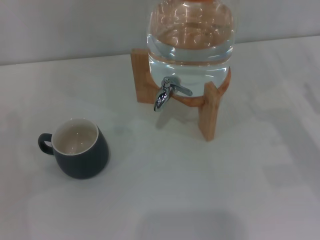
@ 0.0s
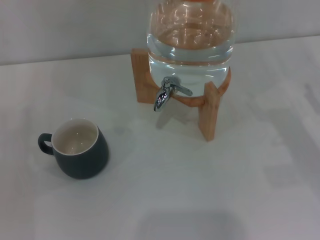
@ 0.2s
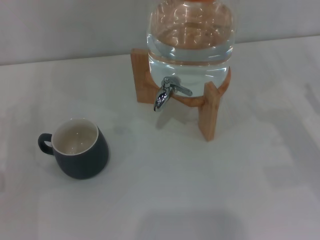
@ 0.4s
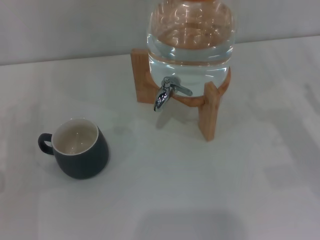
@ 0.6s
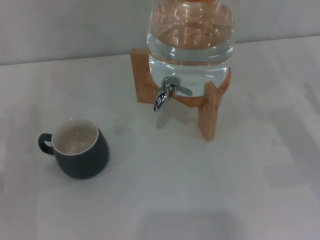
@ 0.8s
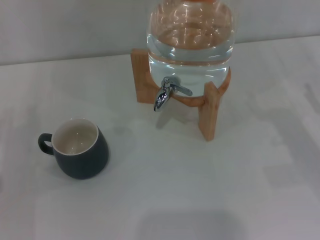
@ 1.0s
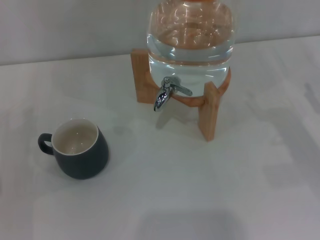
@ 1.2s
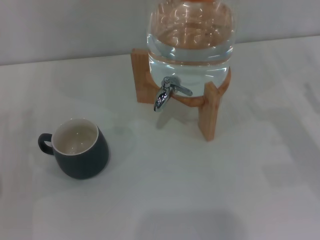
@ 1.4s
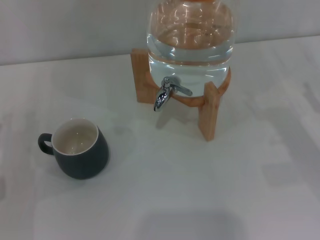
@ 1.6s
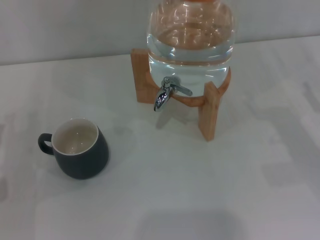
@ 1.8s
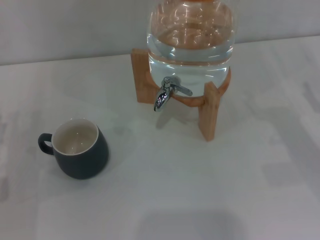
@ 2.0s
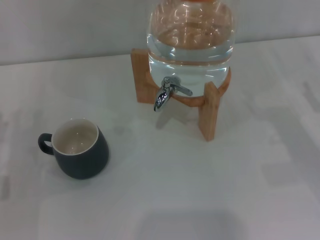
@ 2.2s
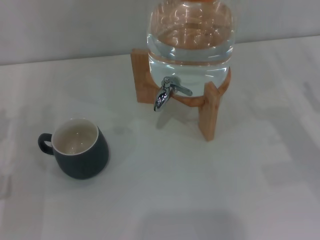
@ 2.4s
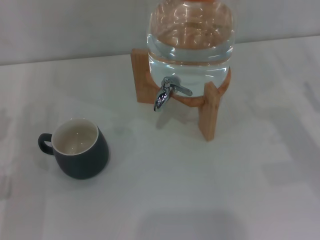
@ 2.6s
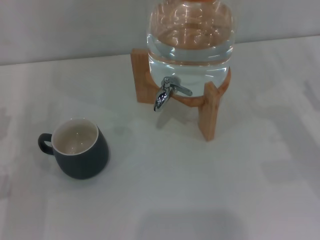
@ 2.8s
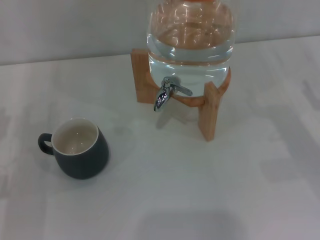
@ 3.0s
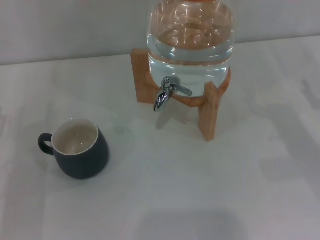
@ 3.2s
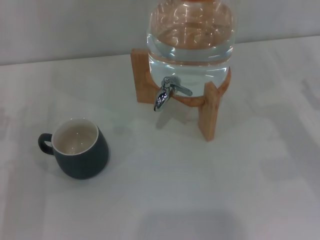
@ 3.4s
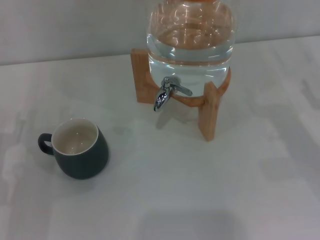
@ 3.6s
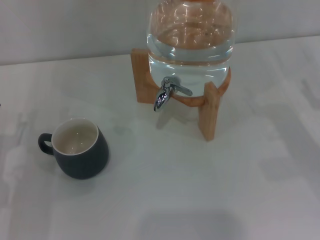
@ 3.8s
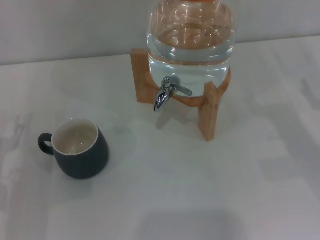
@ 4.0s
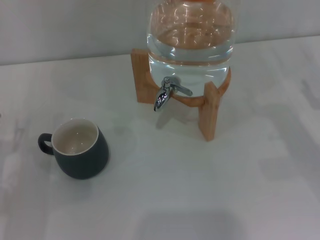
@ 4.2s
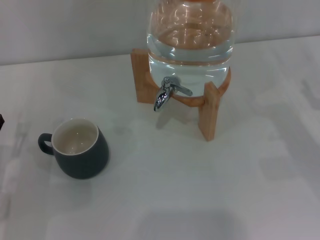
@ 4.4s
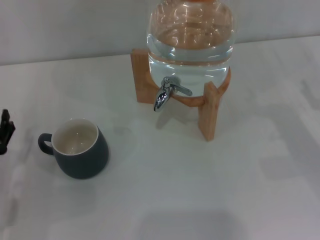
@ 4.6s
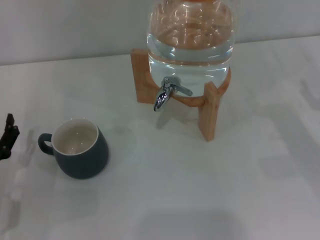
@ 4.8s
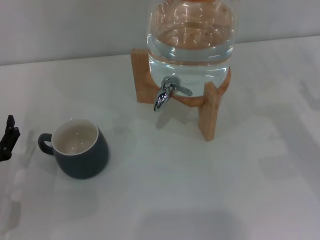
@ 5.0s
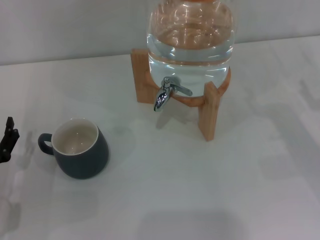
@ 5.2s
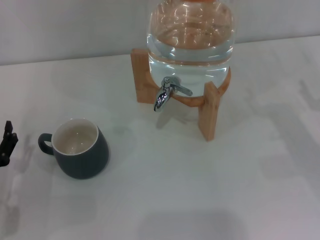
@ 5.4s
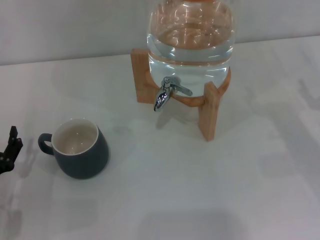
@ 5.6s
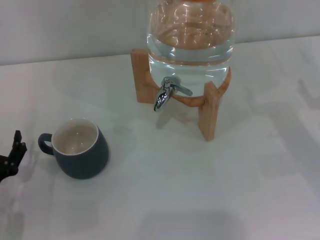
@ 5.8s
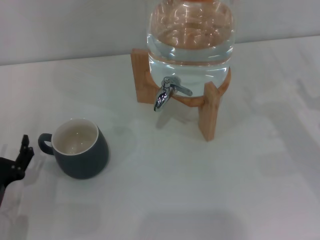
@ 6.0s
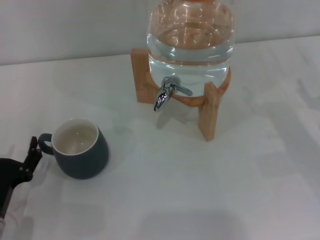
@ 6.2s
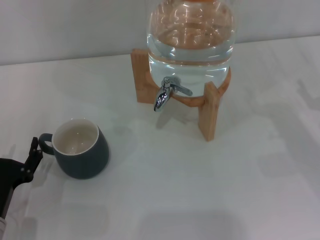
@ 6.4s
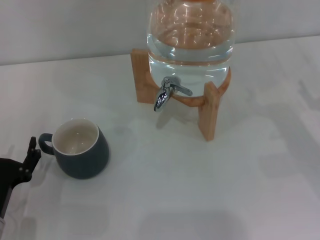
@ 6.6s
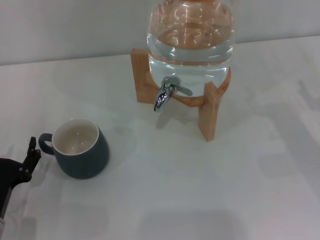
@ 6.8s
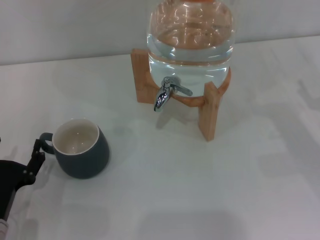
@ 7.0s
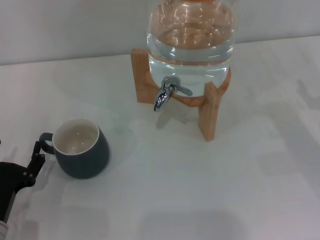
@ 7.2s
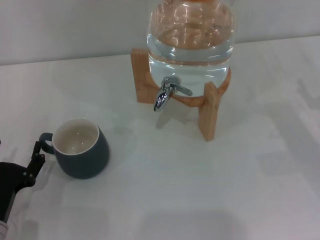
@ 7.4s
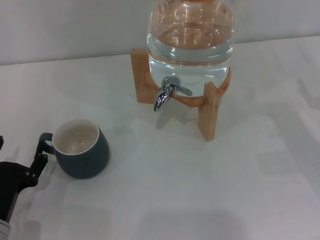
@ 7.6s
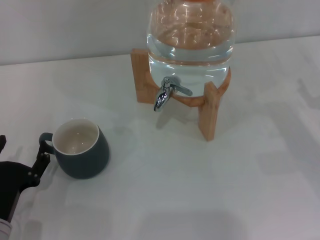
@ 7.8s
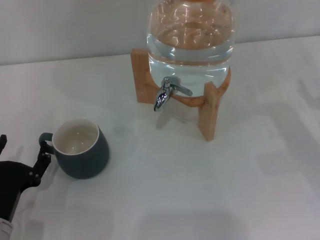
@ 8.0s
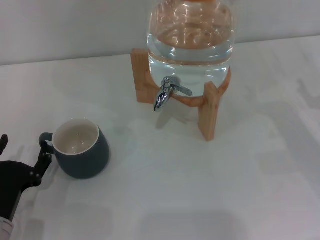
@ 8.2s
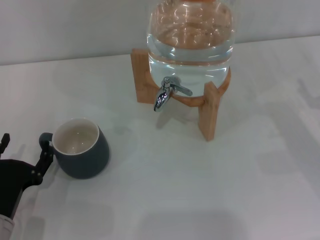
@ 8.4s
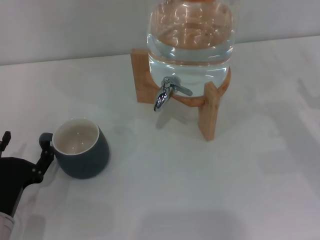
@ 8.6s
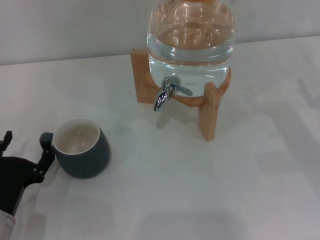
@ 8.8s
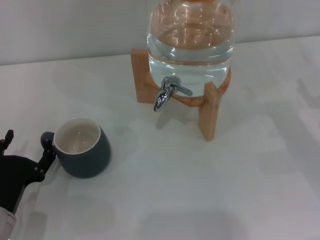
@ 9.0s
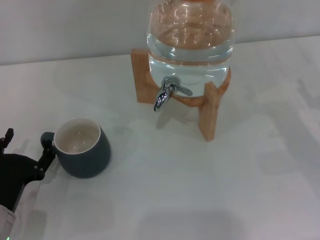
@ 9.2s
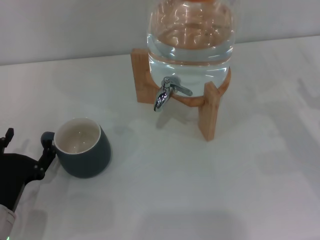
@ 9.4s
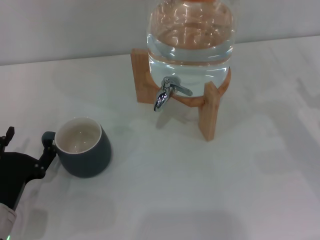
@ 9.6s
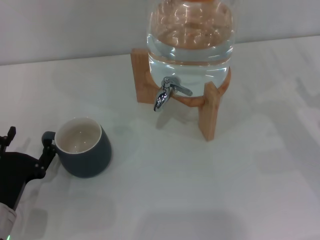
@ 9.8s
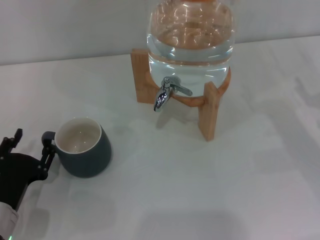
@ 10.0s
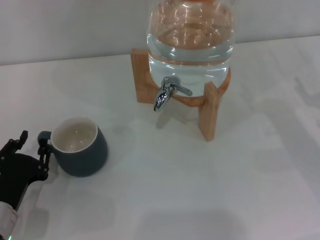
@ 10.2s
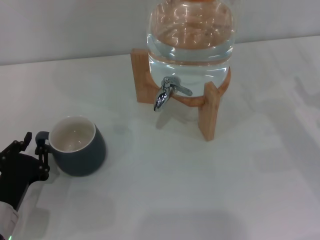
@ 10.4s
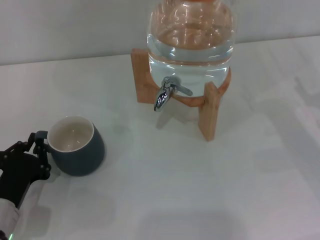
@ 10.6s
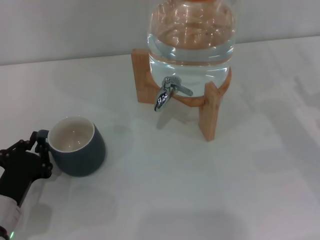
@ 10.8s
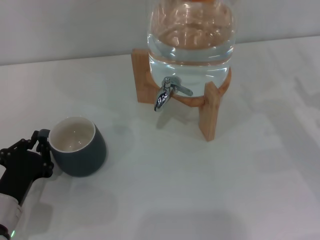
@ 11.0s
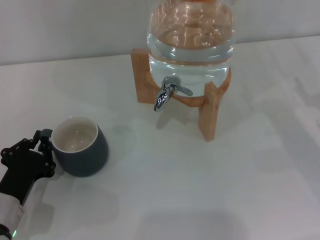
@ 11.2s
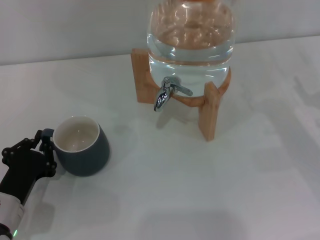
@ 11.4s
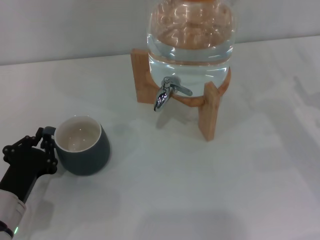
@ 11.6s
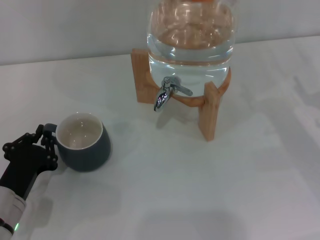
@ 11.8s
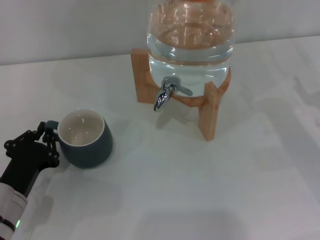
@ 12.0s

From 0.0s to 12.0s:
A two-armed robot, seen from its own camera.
Task of the whole recording: the left gripper pick up the black cup and place it horizontally under the faucet, the right gripper turn on the faucet to fill the cup, and then turn off the faucet.
From 4.4s to 6.0s: The left gripper ends up about 5 cm from where it was.
From 6.0s to 9.0s: The grippers stay close to where they were, moving slightly.
From 9.0s to 10.4s: The left gripper closes up.
From 10.4s to 12.0s: The left gripper closes up.

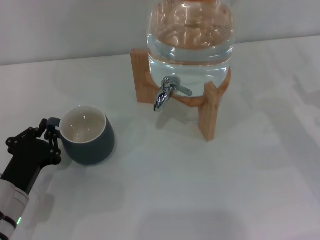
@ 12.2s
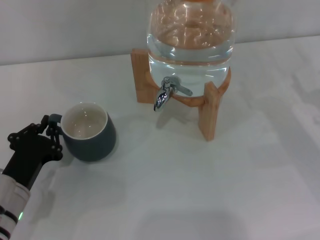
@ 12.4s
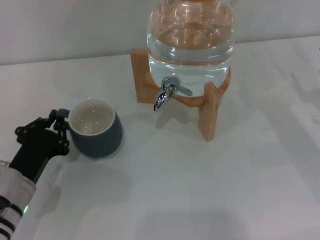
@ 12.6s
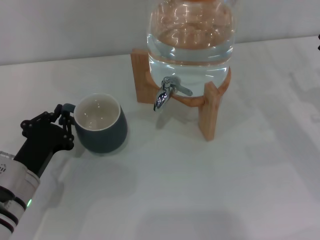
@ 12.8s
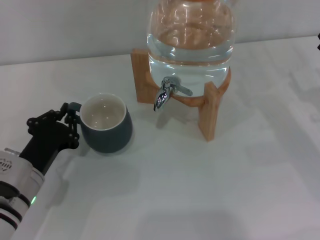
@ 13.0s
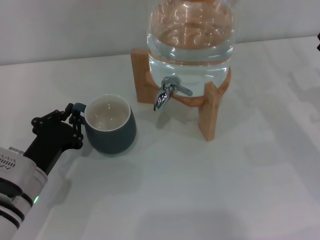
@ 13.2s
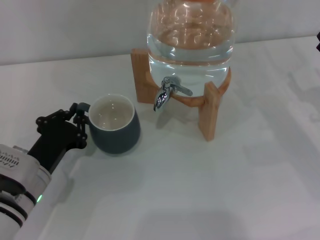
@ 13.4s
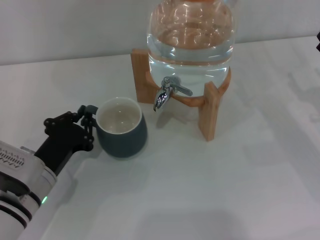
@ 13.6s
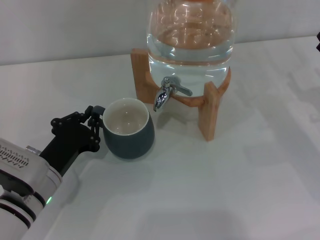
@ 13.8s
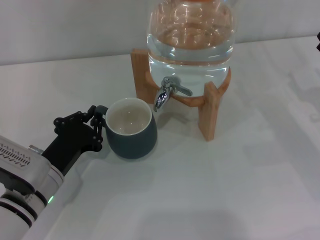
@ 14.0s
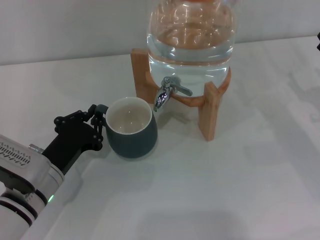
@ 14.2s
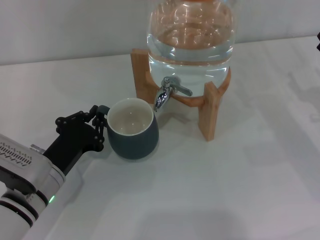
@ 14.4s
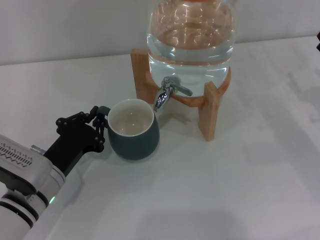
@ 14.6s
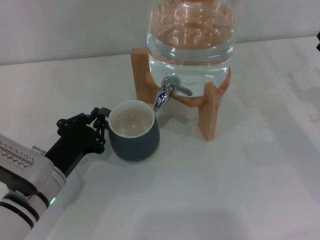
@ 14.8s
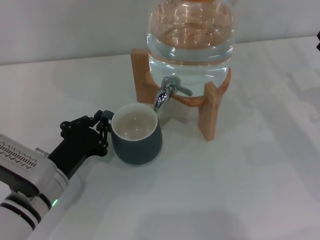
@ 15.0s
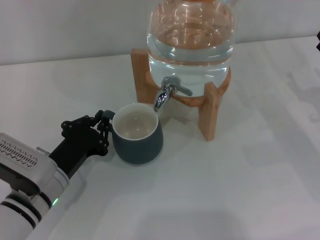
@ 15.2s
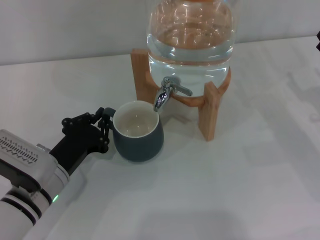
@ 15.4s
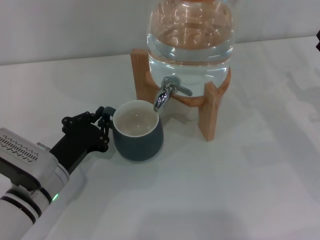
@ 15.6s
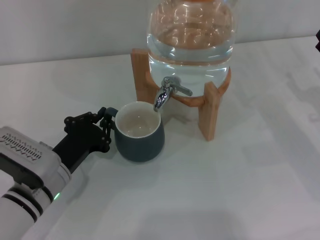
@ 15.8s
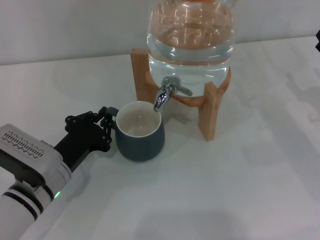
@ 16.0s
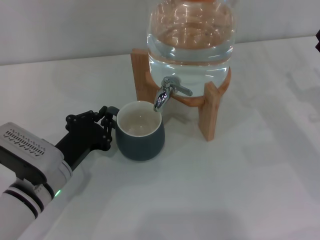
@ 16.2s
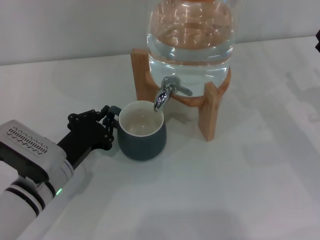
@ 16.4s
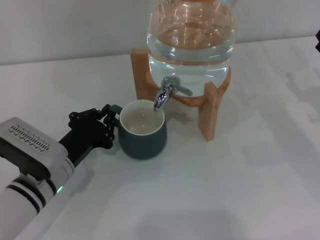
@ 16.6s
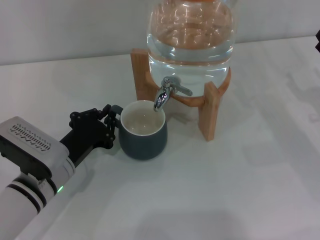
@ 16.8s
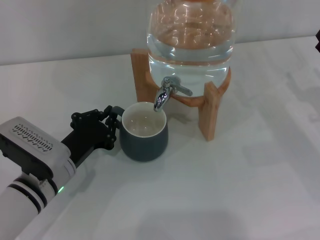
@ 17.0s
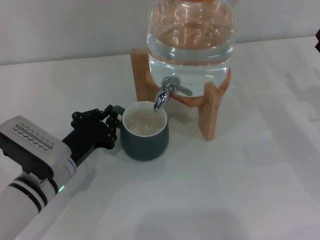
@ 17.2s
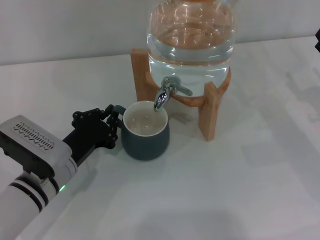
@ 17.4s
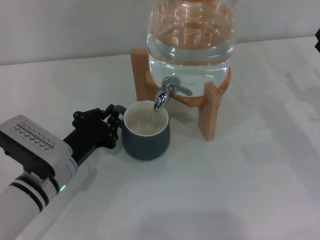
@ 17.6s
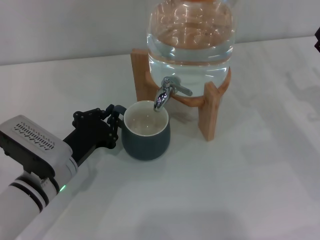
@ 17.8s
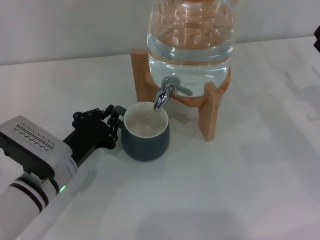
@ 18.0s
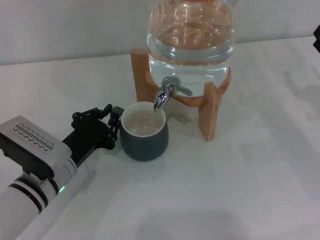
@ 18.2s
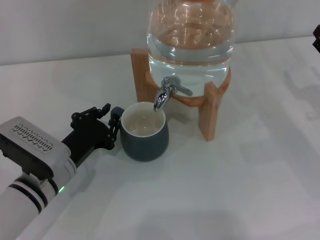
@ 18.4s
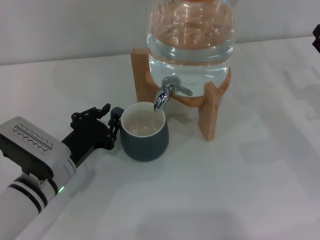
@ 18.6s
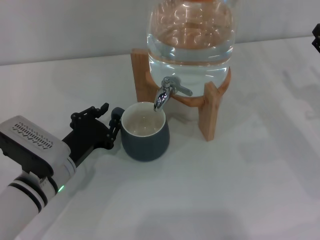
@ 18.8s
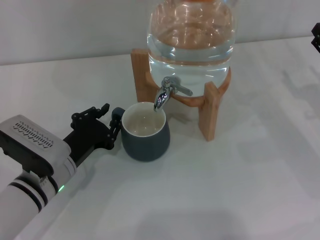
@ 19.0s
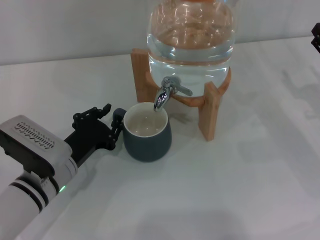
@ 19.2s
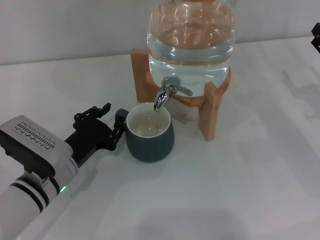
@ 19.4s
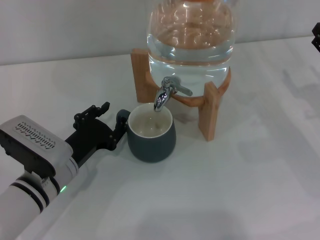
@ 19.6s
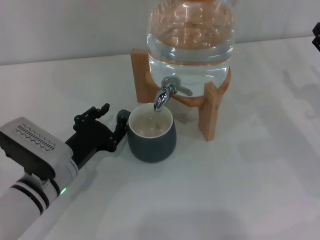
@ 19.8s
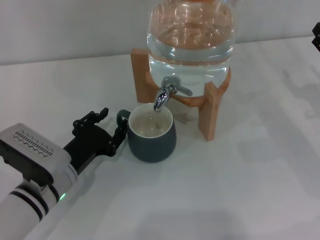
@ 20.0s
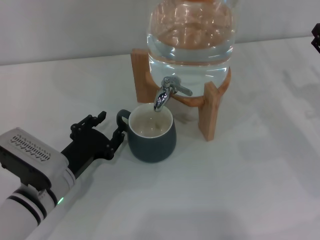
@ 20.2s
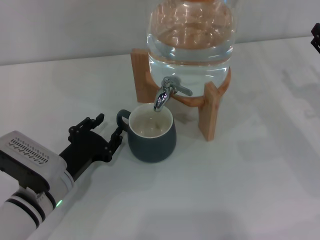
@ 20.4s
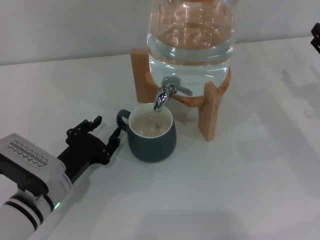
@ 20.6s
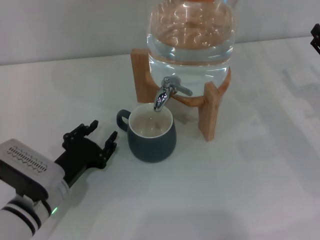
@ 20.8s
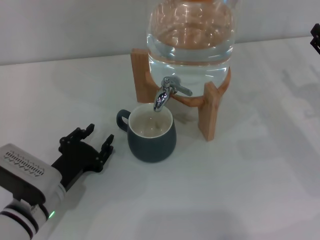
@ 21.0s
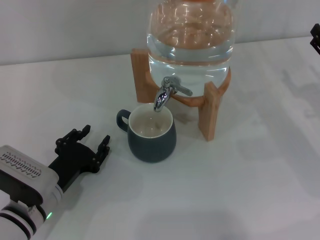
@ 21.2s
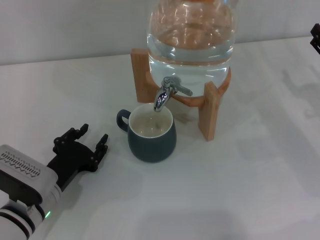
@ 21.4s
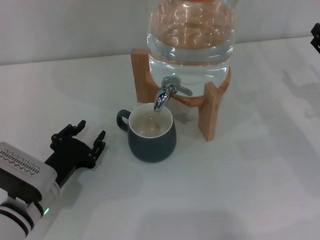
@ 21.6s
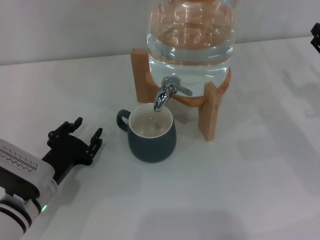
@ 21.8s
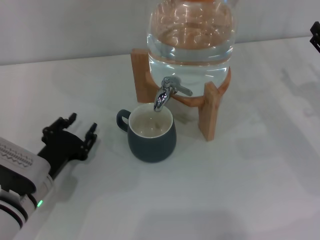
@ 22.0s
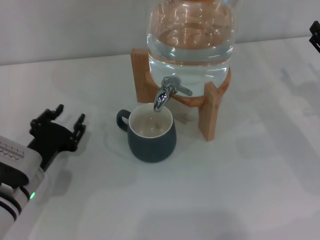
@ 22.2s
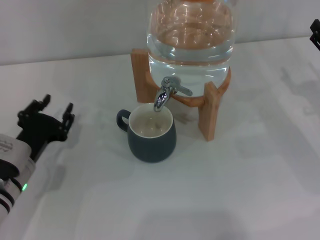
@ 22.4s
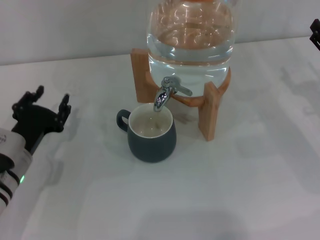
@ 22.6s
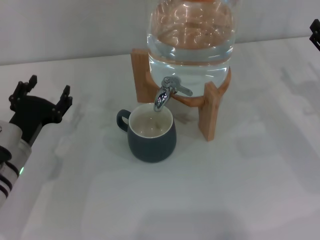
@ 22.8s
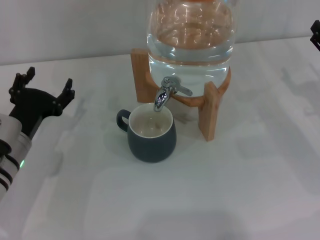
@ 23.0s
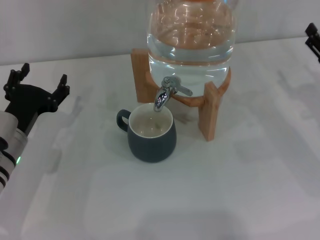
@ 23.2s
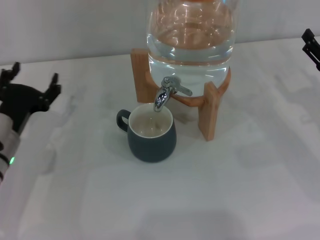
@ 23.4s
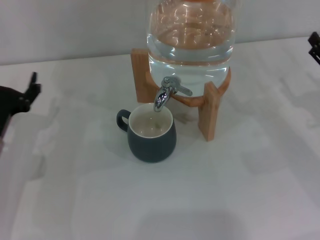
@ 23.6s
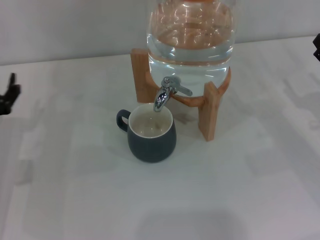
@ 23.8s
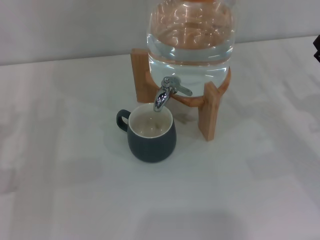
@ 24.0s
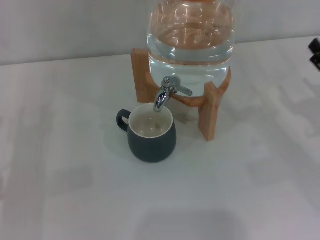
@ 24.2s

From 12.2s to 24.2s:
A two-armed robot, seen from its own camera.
Task of the whole recording: the left gripper pick up the black cup and place it horizontally under the faucet, the right gripper turn on the faucet to fill the cup, and then turn off the faucet.
Step, from 12.2s to 20.8s: Move the cup beneath the water dispenser nozzle with the left gripper.
From 12.2s to 13.8s: The left gripper changes place by some 5 cm.
From 13.8s to 15.2s: Both grippers stay about where they are.
From 15.2s to 16.6s: The grippers move only a little.
From 16.6s to 18.2s: Both grippers stay about where they are.
From 18.2s to 19.8s: The left gripper opens its fingers.
From 19.8s to 21.2s: The grippers move only a little.
From 21.2s to 22.6s: The left gripper ends up roughly 5 cm from where it was.
From 22.6s to 24.2s: The left gripper shifts approximately 10 cm to the left, and opens up.
